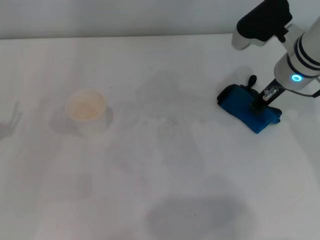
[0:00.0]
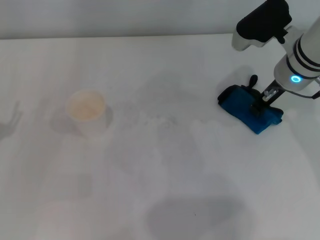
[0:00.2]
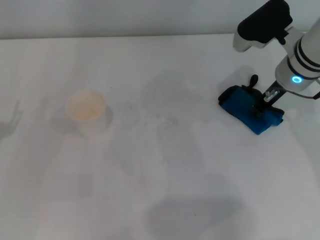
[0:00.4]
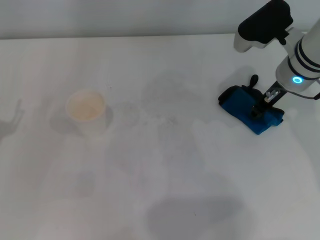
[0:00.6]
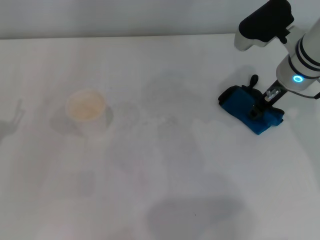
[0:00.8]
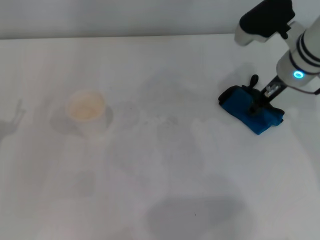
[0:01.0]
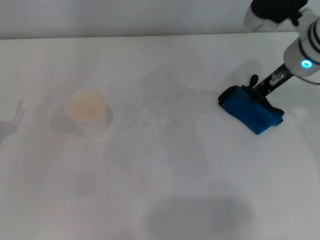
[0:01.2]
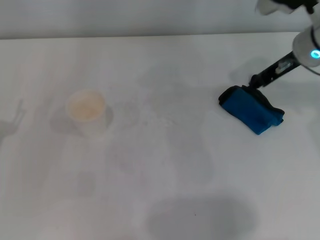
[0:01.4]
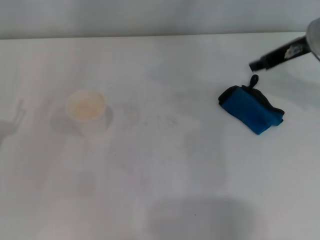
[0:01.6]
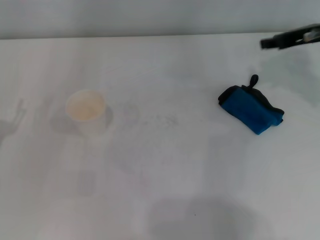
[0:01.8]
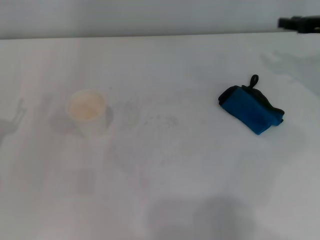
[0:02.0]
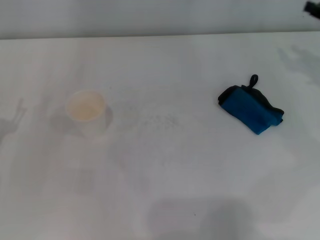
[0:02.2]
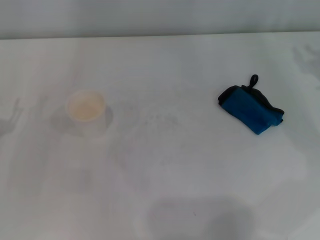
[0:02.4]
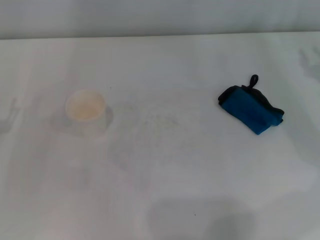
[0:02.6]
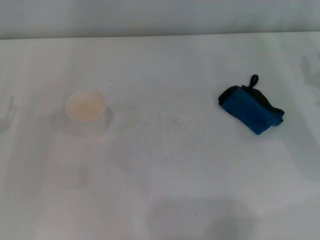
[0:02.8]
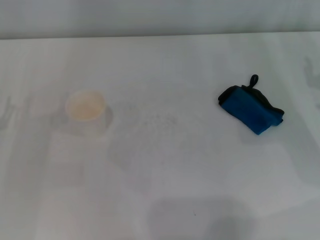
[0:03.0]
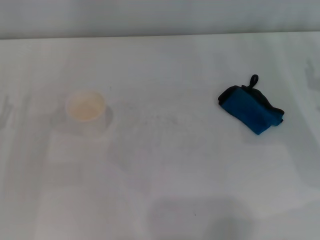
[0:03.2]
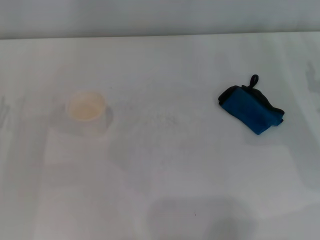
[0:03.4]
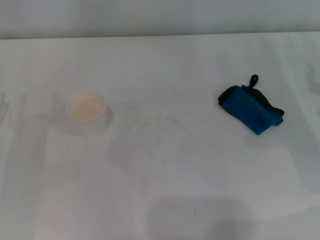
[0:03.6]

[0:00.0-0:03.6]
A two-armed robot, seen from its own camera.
Step, 0:00.4 to 0:01.0: Place the rag on the table with the right gripper.
0:00.0 to 0:01.8: The right gripper travels to the right by about 10 cm, and opens up.
0:01.8 to 0:03.6: The right gripper moves downward and backward, some 15 cm.

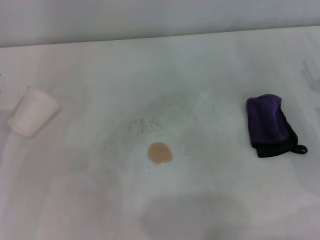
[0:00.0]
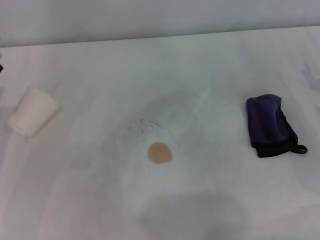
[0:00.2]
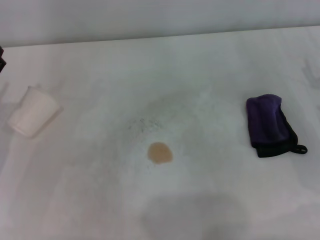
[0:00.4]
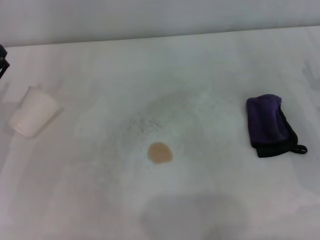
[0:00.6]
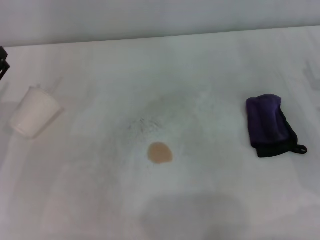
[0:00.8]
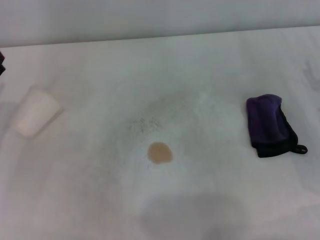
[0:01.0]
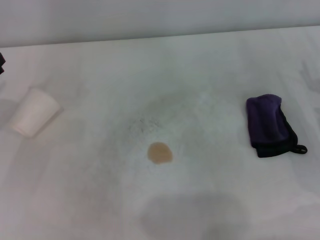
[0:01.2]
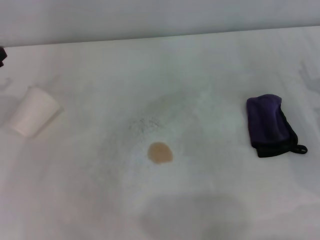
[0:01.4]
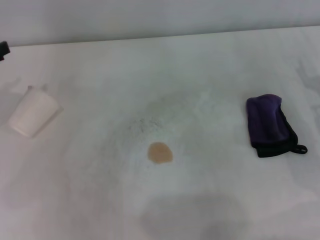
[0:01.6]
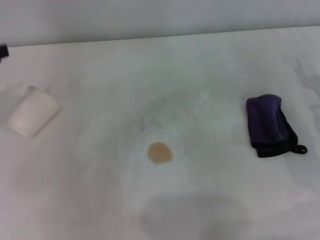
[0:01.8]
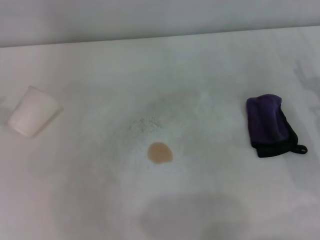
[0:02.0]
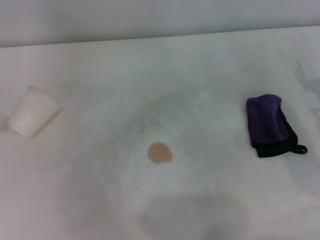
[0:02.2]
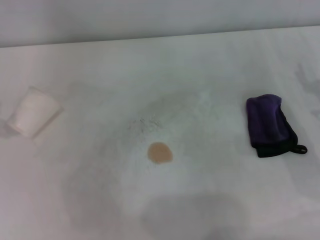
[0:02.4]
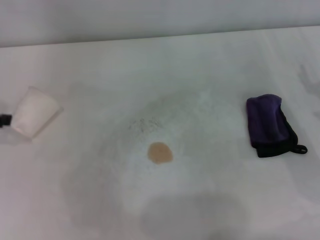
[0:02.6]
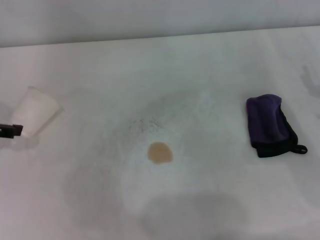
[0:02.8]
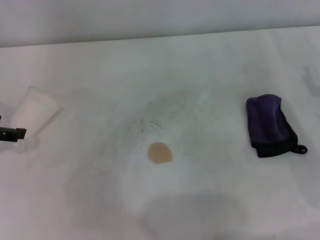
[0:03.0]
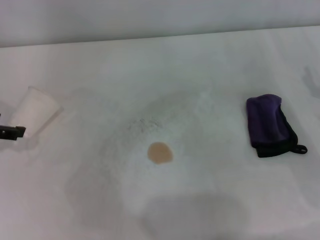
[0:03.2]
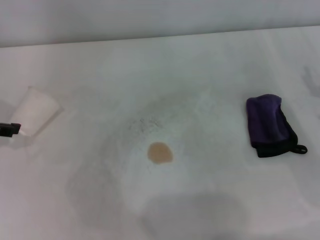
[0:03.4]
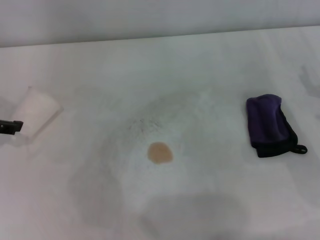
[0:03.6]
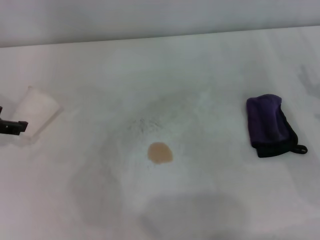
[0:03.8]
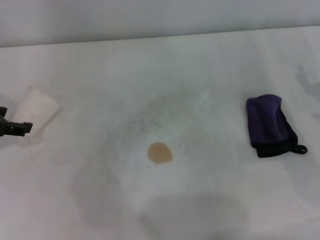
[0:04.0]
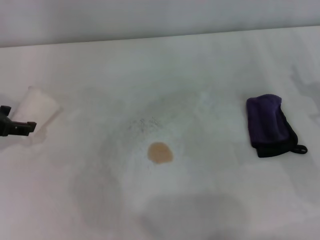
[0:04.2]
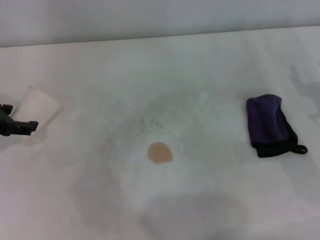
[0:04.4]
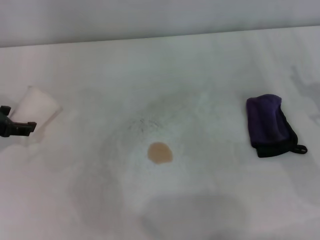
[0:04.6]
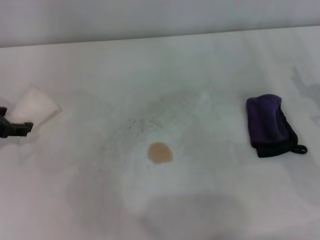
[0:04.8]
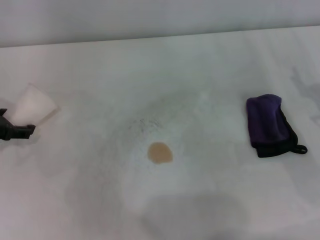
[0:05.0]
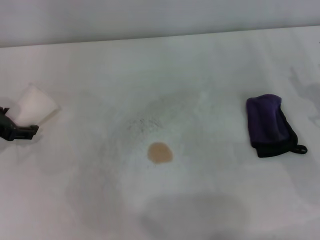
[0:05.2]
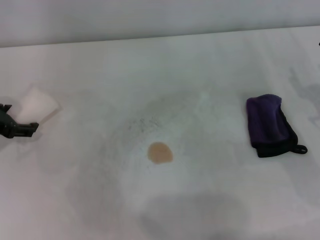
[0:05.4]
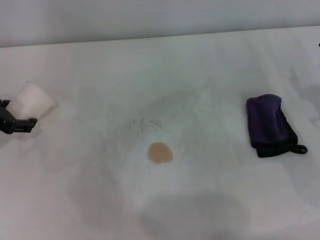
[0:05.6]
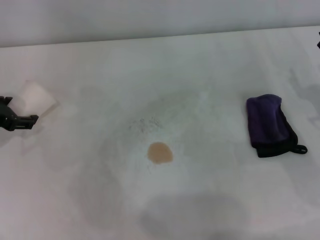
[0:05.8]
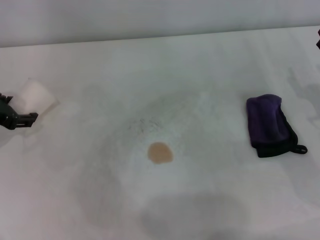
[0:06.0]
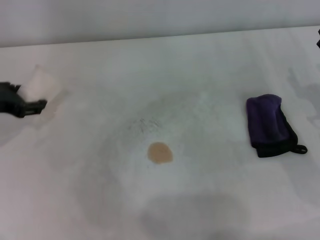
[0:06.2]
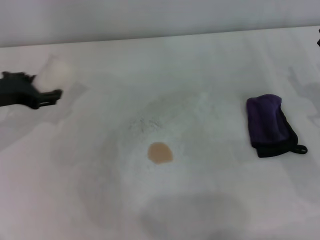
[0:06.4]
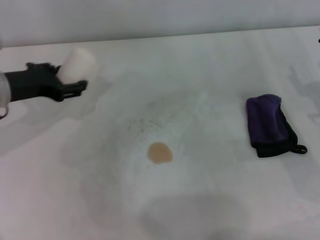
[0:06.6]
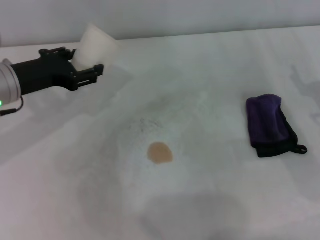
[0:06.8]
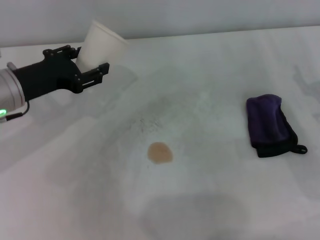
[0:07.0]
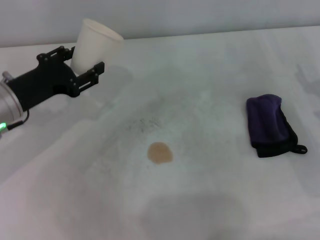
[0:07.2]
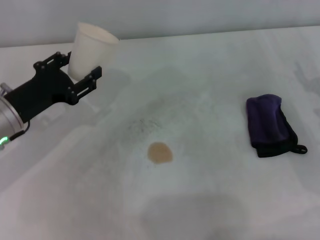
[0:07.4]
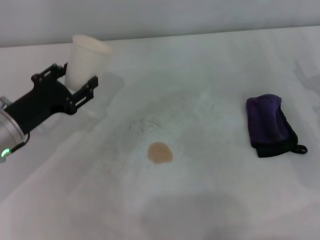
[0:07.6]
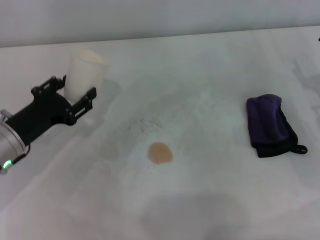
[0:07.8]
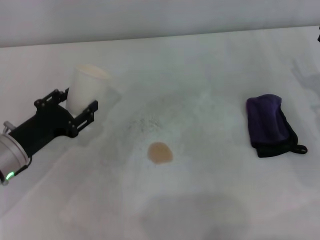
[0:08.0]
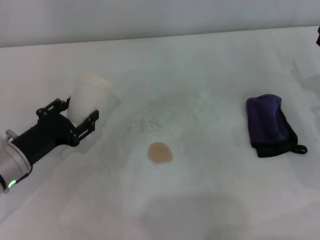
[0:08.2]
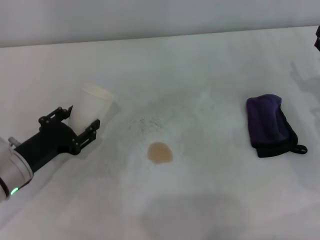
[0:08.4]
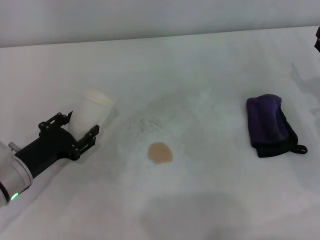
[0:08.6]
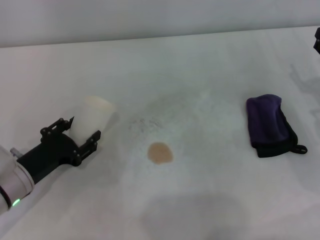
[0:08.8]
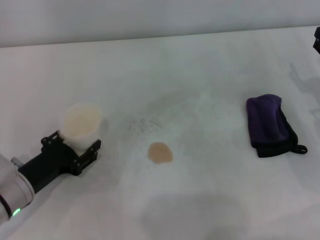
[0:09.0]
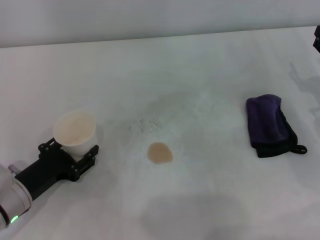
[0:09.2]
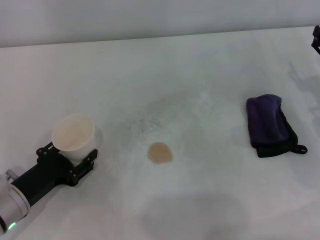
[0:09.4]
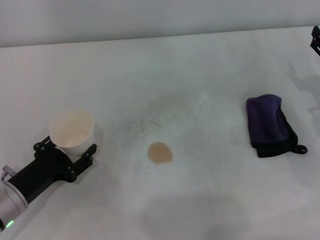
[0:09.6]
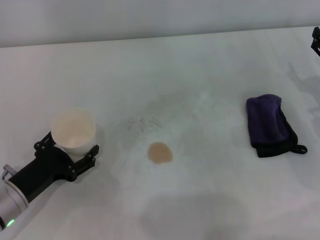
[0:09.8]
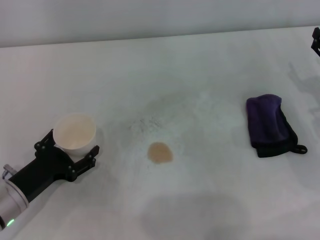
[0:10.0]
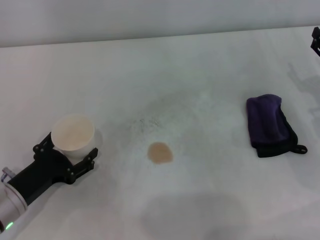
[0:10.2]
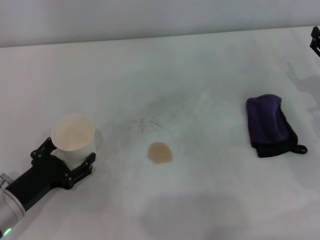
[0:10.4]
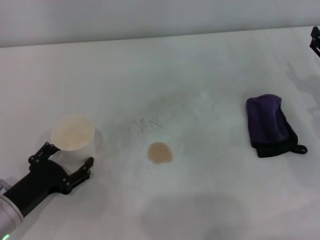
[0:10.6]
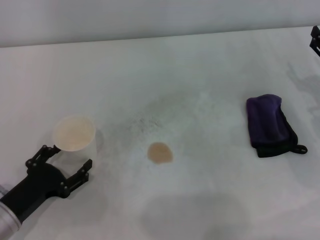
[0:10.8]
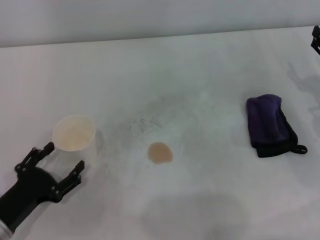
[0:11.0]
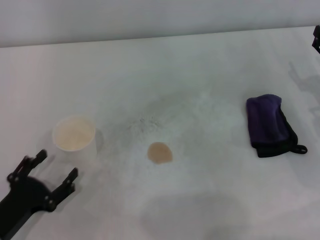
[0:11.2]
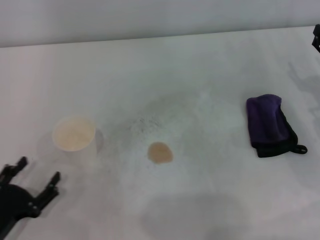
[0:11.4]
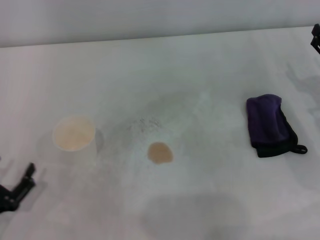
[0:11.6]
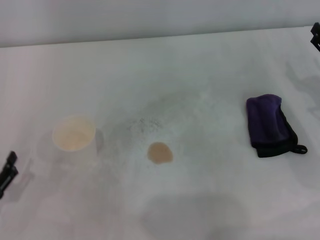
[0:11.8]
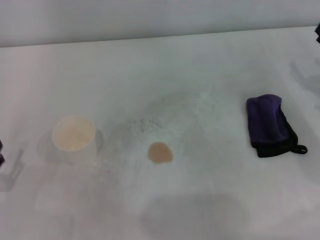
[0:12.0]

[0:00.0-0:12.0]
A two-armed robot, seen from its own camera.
Step, 0:05.4 to 0:10.0: Stand the paper cup upright with the left gripper.
0:03.0 to 0:04.4: The grippers stay close to where they were, moving slightly.
0:04.4 to 0:06.0: The left gripper closes.
0:06.0 to 0:07.6: The left gripper goes about 10 cm to the right and backward, and closes.
0:07.6 to 0:09.0: The left gripper shifts about 10 cm downward and backward.
0:09.0 to 0:10.4: The left gripper opens.
0:10.4 to 0:12.0: The left gripper heads to the left and backward, covering some 10 cm.

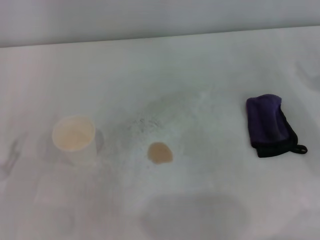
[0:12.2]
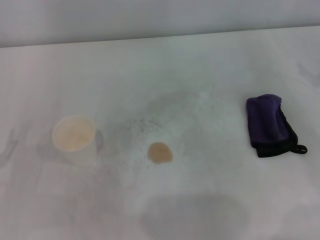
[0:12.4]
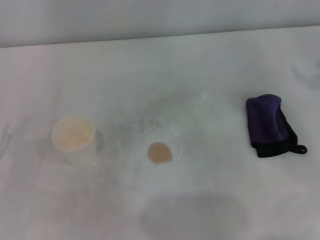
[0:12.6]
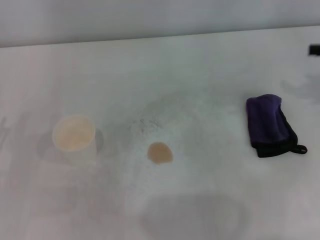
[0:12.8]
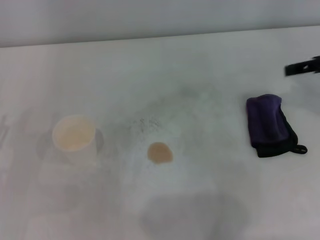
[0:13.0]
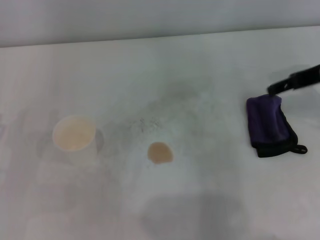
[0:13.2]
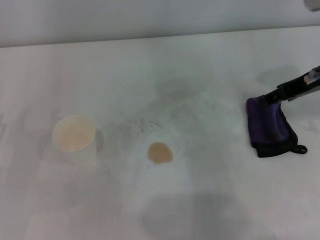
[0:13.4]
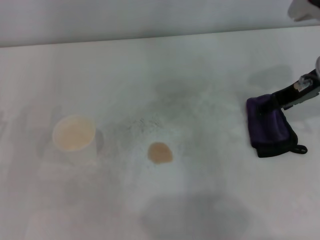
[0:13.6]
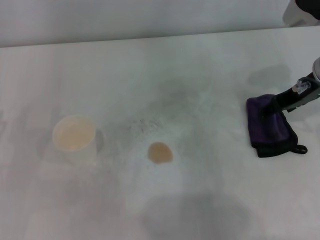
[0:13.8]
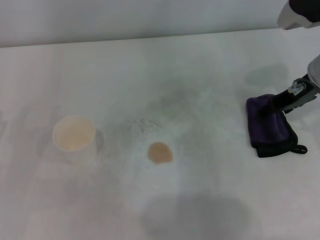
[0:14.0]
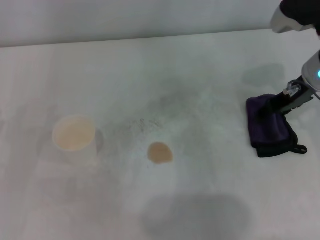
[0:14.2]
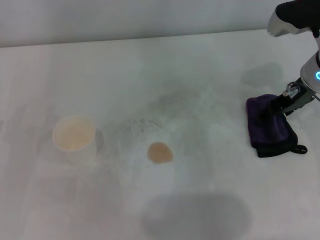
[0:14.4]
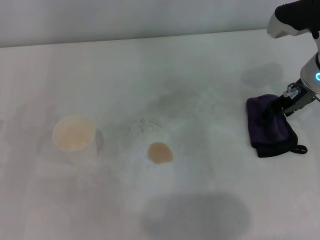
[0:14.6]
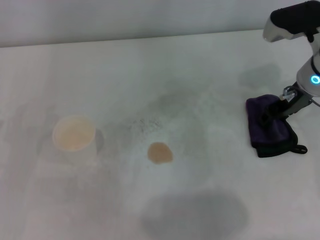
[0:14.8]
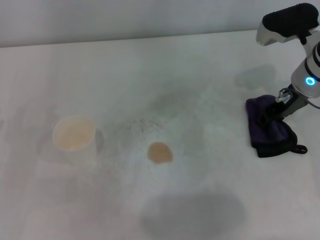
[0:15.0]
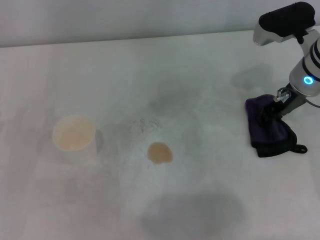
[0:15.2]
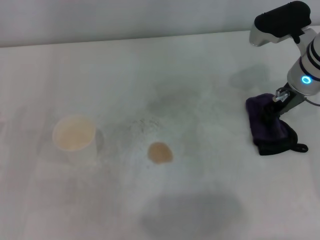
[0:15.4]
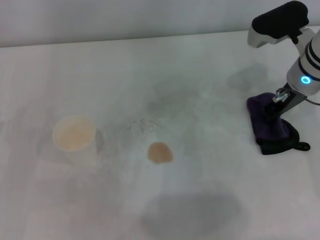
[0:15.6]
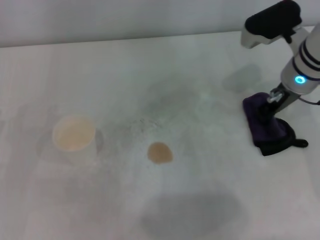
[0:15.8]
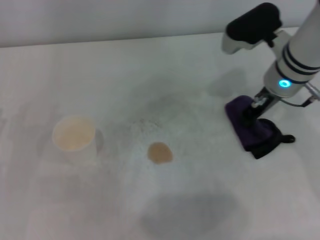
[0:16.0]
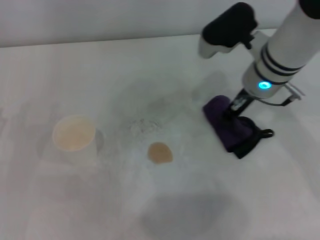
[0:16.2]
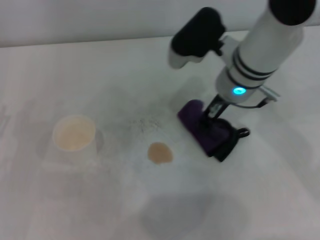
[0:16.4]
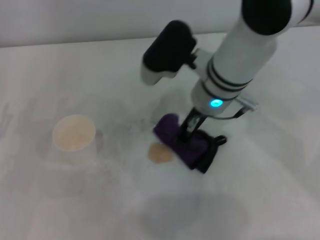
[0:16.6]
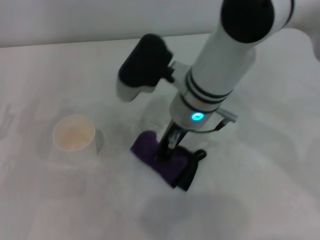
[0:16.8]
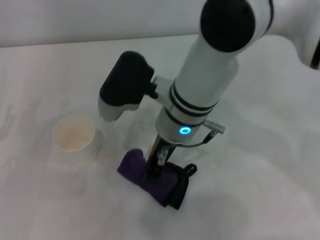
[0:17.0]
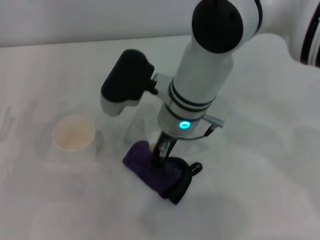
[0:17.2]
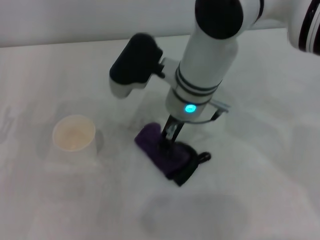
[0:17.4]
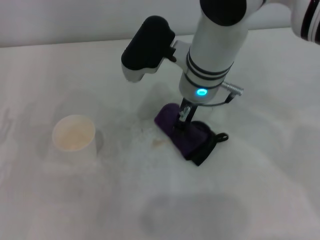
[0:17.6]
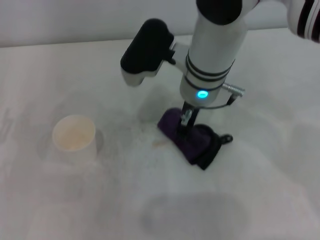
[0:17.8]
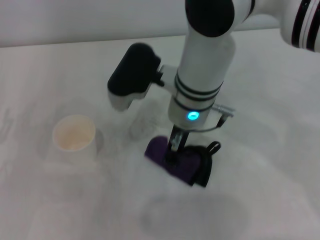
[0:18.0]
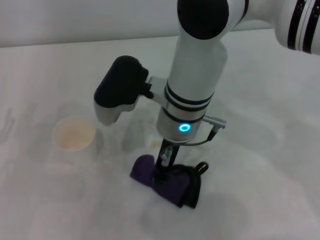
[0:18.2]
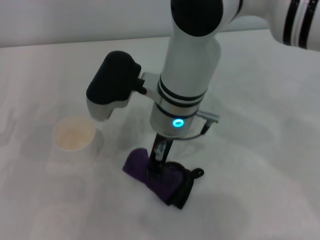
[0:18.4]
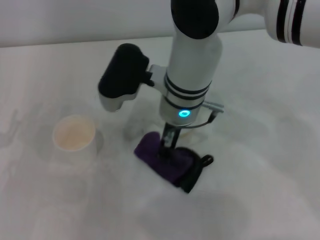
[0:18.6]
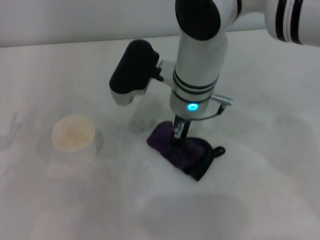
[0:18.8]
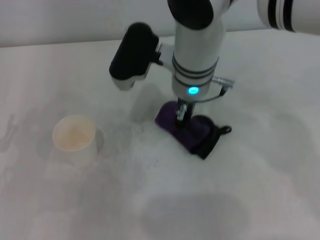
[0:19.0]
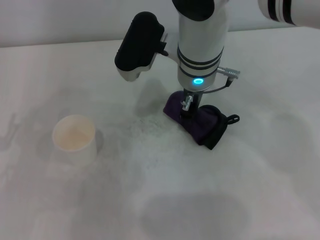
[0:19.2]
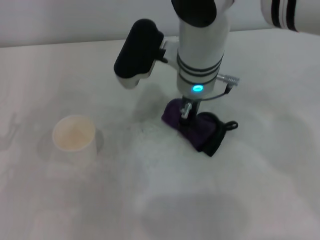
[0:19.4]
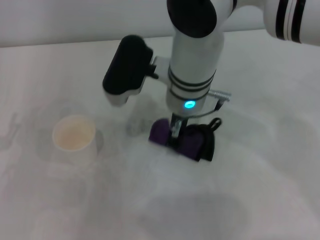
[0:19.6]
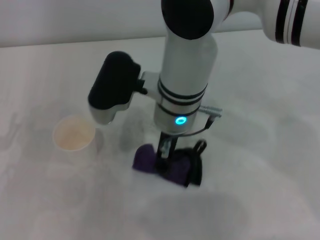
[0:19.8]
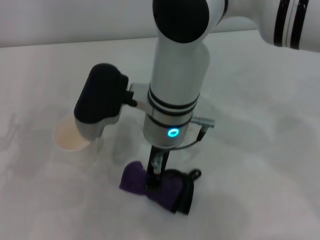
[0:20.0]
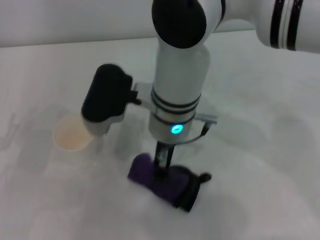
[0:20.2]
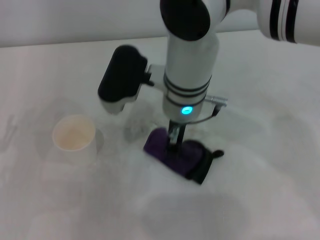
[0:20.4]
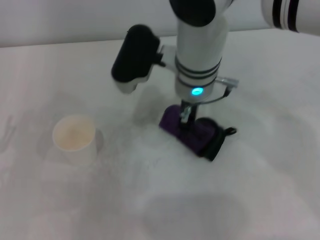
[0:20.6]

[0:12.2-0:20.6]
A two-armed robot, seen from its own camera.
Step, 0:12.2 to 0:15.4: Grasp the rag with the right gripper.
0:12.2 to 0:13.6: The right gripper goes roughly 15 cm to the left, upward and forward.
0:13.6 to 0:15.0: The right gripper ends up roughly 5 cm from where it was.
0:15.0 to 0:16.4: The right gripper shifts approximately 10 cm to the left, and closes up.
0:16.4 to 0:17.8: The right gripper shifts approximately 5 cm to the left.
0:17.8 to 0:19.2: The grippers move only a little.
